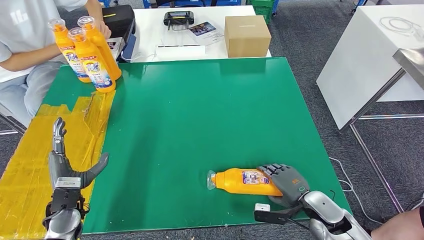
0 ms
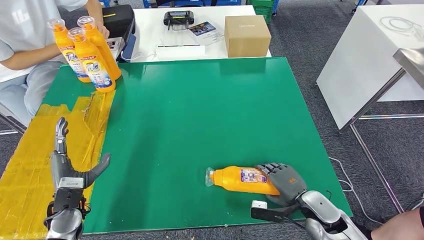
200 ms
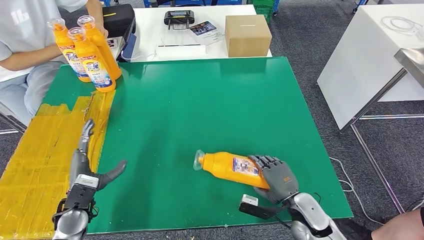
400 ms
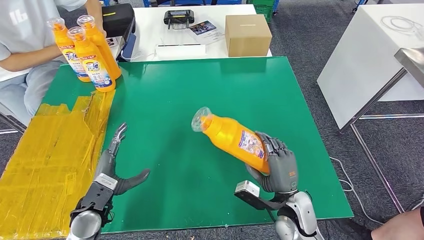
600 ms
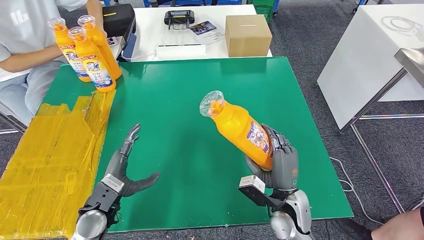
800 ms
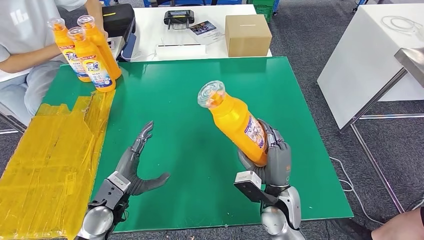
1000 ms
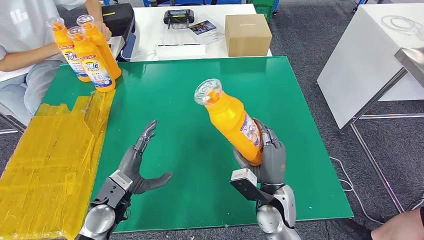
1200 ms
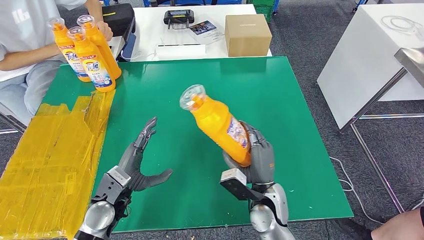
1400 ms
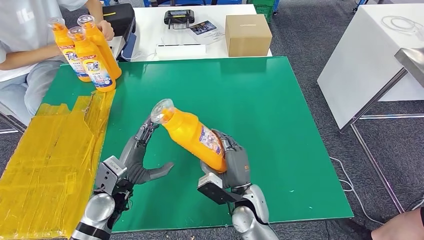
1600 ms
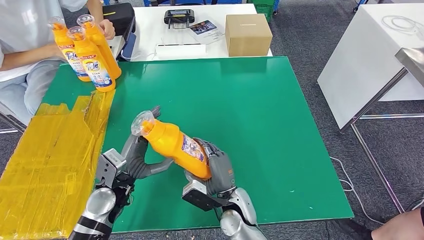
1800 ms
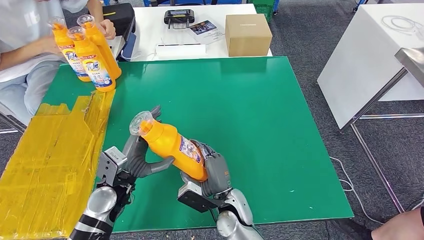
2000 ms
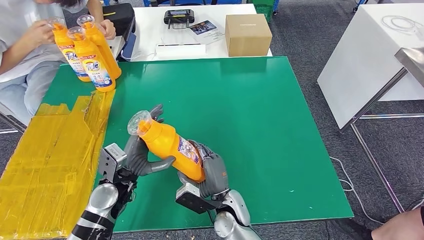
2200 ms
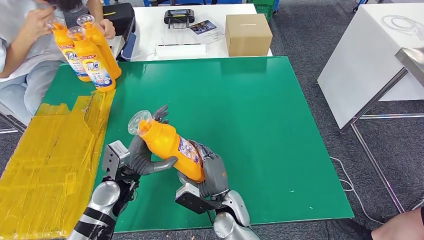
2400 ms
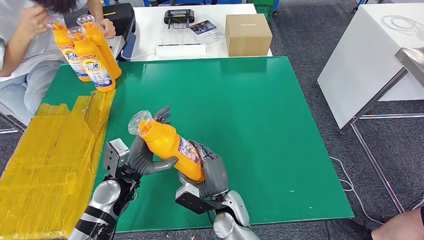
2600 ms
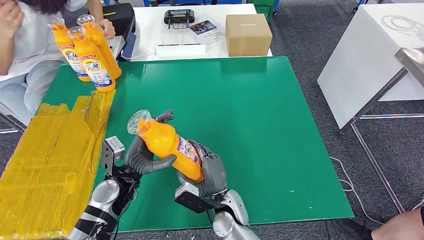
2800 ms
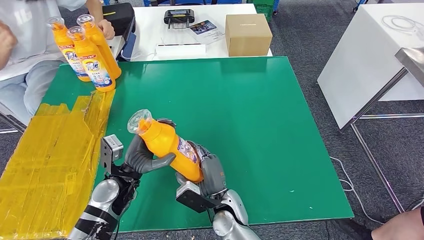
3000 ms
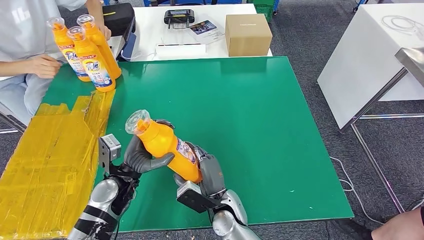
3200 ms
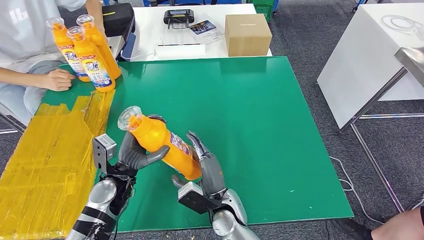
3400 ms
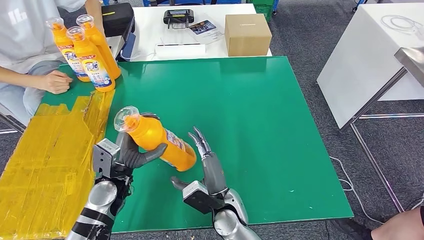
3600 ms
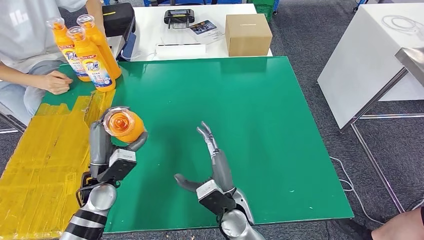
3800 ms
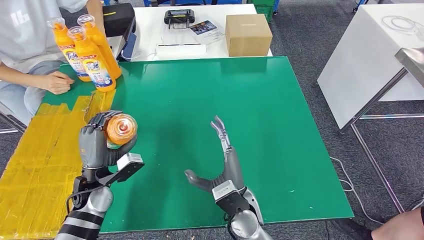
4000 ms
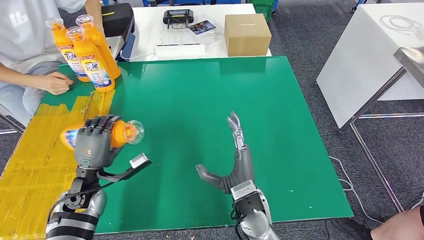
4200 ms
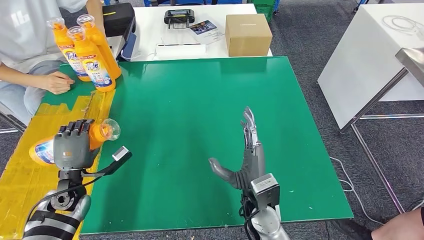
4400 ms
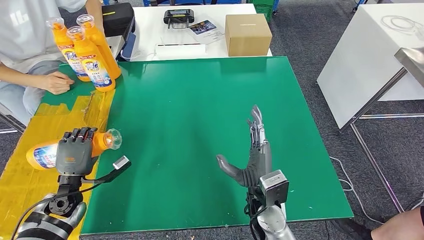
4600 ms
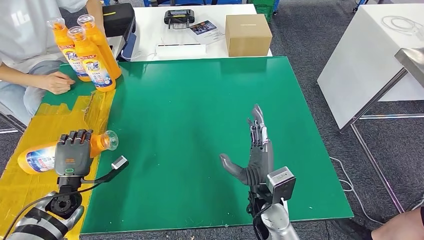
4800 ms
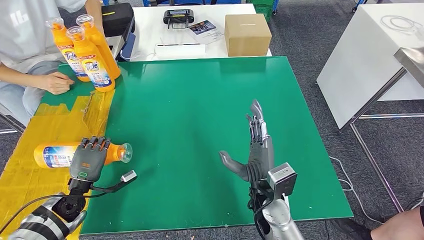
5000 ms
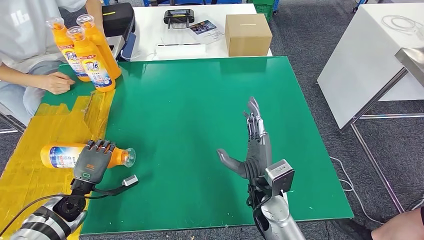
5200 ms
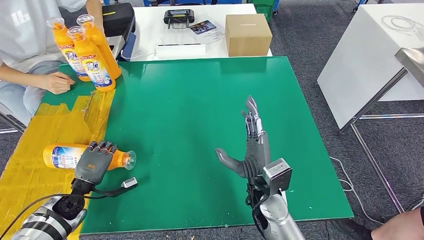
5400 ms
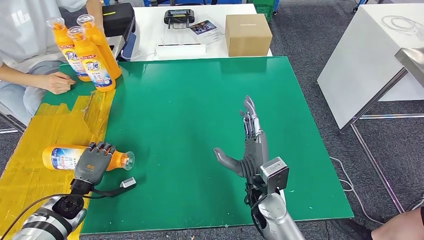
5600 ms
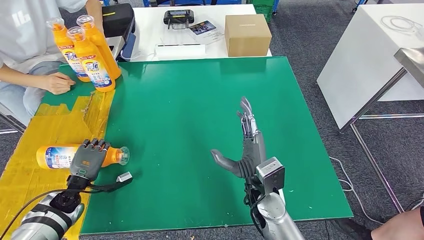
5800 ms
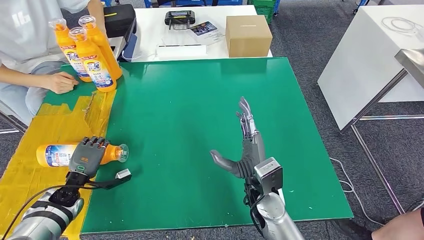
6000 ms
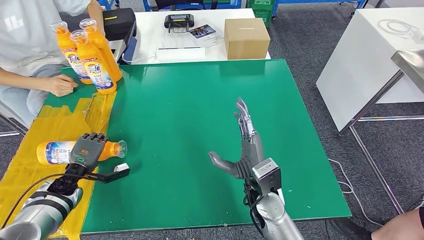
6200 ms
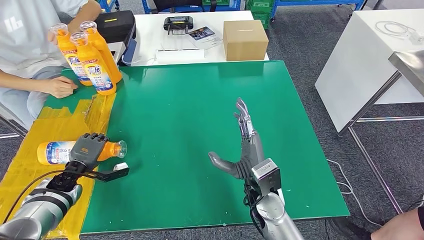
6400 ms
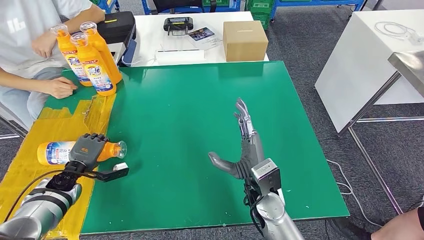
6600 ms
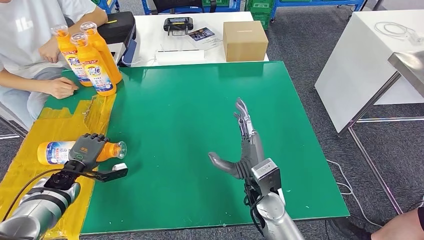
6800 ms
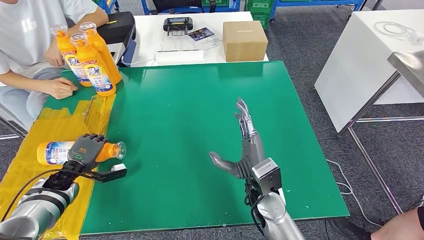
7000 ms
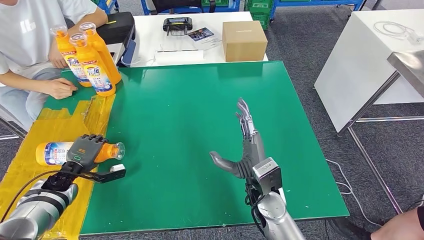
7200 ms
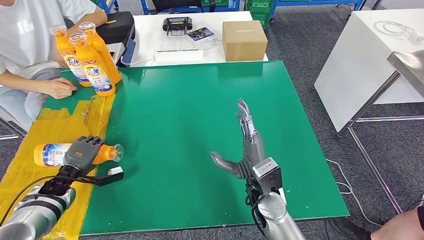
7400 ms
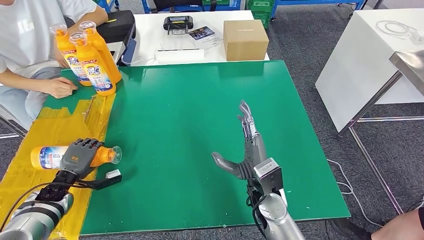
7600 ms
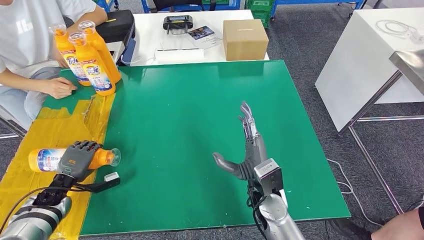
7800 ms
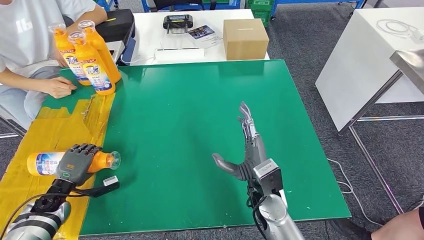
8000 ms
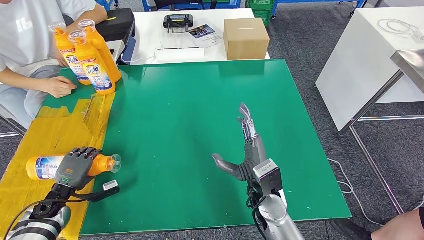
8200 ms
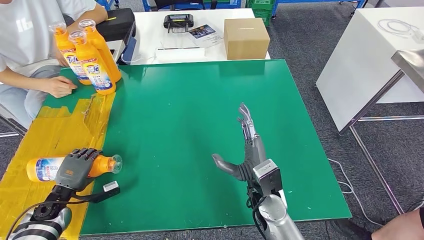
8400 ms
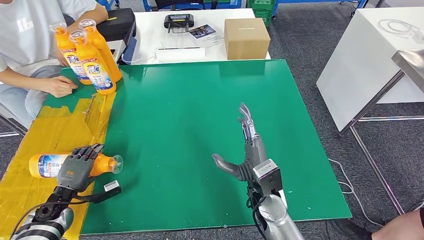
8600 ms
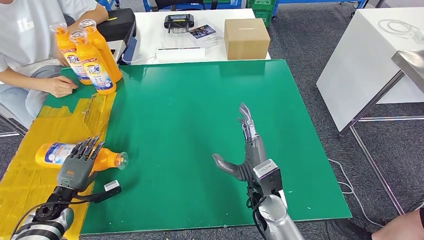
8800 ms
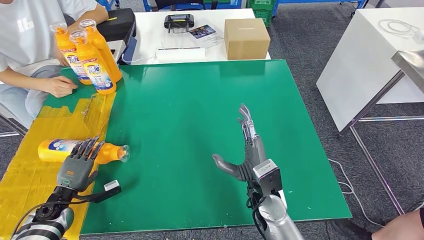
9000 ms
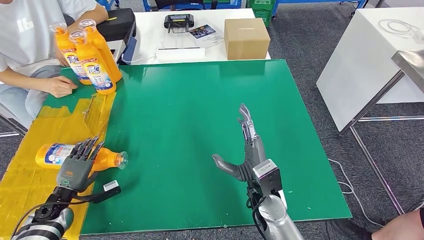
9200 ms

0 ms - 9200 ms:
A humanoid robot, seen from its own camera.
Step, 0 ms - 1600 ms: Pick up the bottle from the table.
Step, 2600 ms - 9200 ms: Flip the bottle to face forward.
1600 ms - 3000 ms: The right hand is displaced to the left by approximately 10 cm.
3000 ms - 4600 ms: The right hand moves to the right and upward, some 10 cm; the left hand shifts about 15 cm to the left.
6200 ms - 7600 ms: There are only small adjustments of the hands.
7600 ms - 9200 ms: The hands stay close to where they were, moving slightly.
